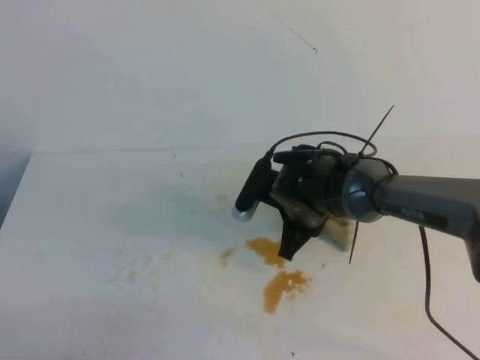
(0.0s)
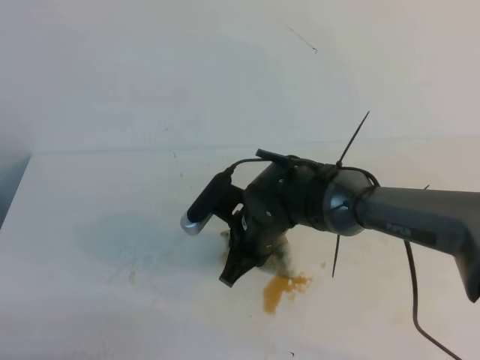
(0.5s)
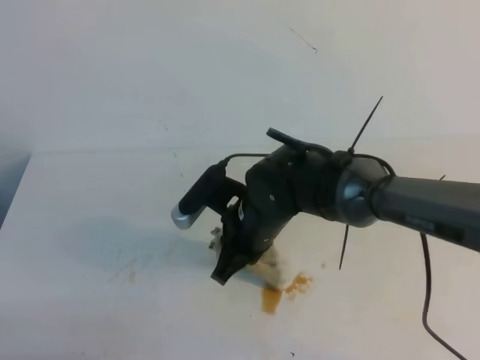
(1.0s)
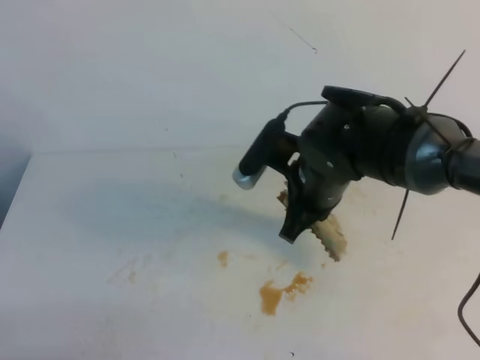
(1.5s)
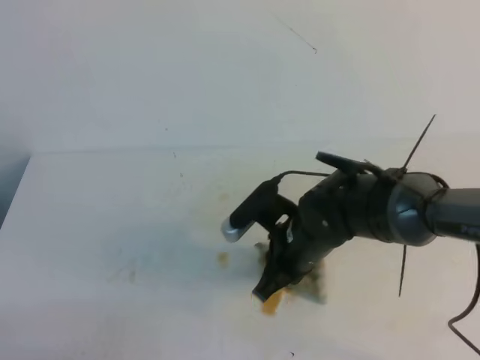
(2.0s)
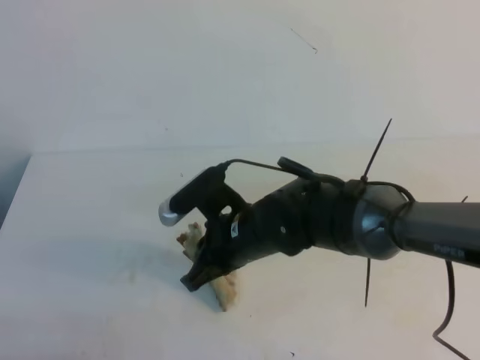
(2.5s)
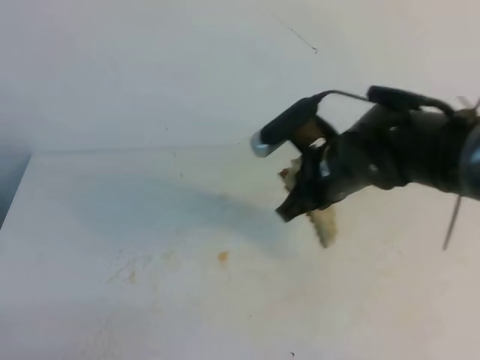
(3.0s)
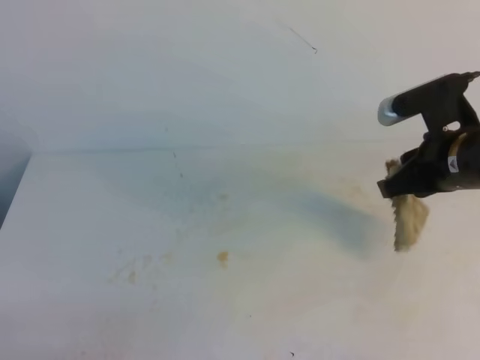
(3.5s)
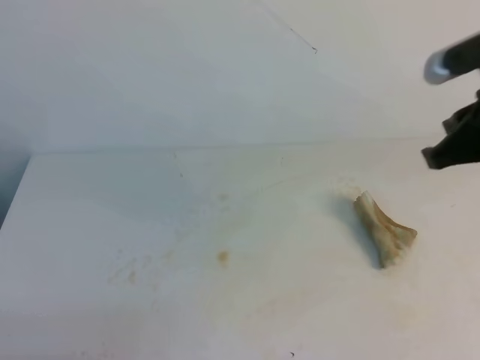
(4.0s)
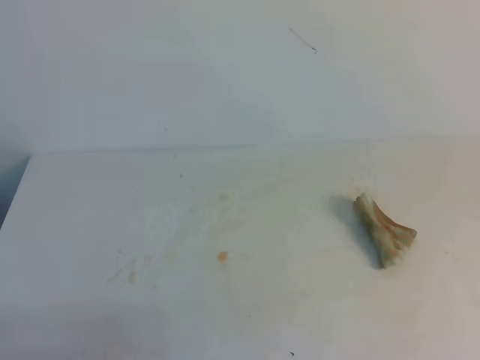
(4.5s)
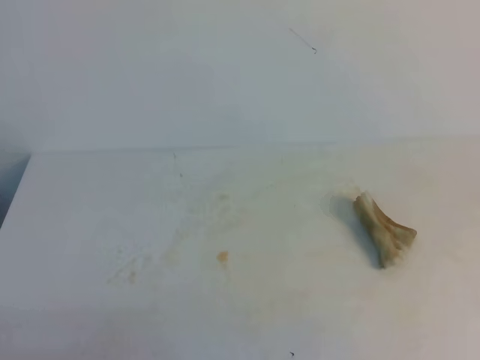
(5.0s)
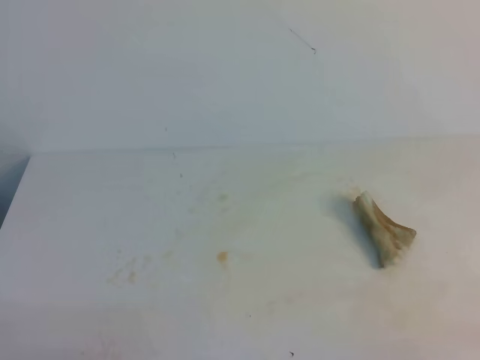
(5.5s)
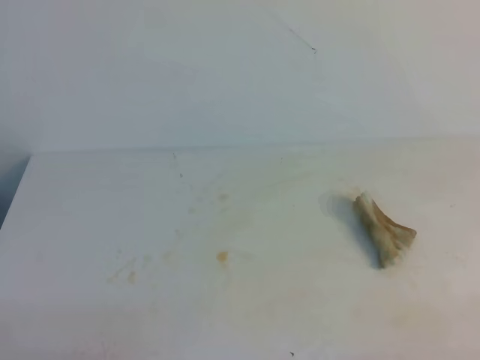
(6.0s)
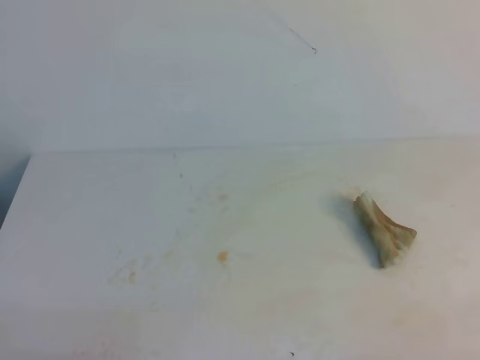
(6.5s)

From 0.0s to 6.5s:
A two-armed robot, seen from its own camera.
From 0.0s to 2.0s: The right gripper goes about 5 cm backward, and moves approximately 5 cm upward and comes back.
From 2.0s to 4.5s: The right gripper shifts roughly 35 cm to the right, upward and backward, and opens and closes again.
